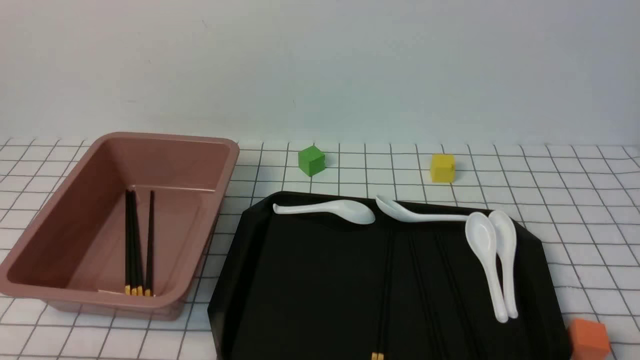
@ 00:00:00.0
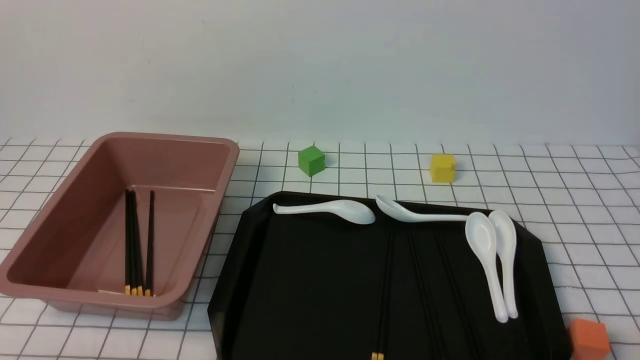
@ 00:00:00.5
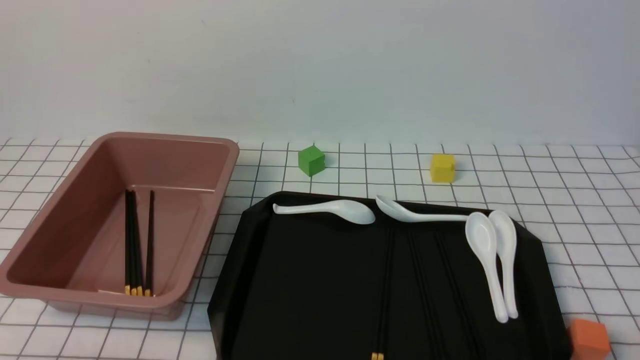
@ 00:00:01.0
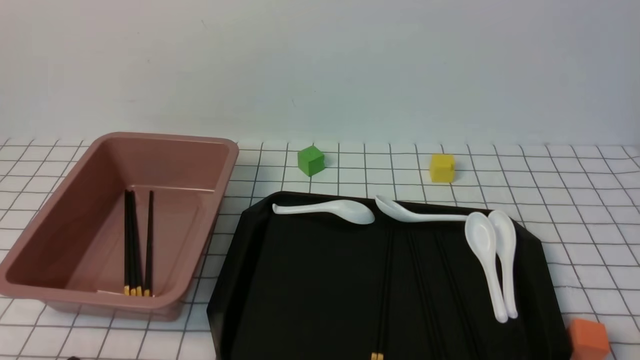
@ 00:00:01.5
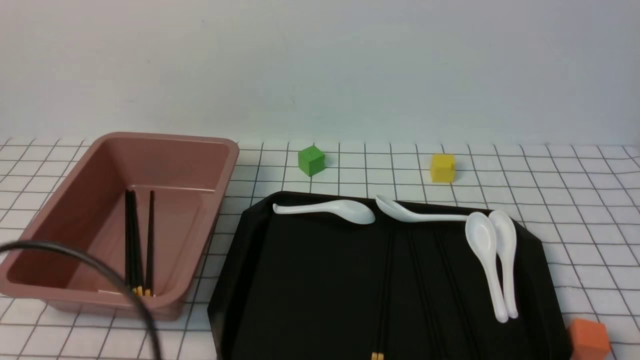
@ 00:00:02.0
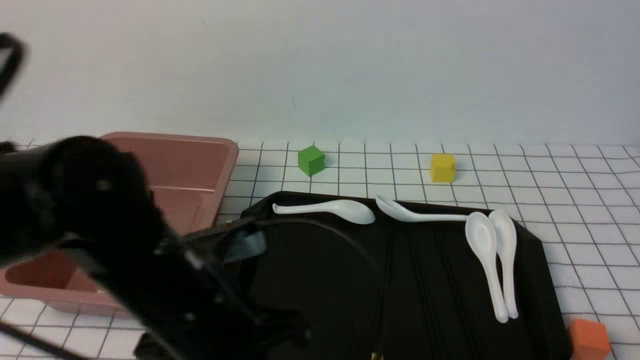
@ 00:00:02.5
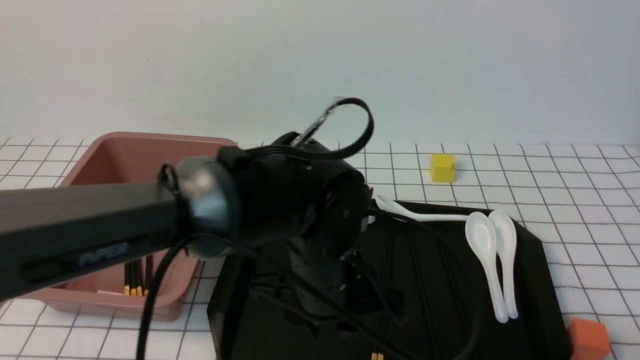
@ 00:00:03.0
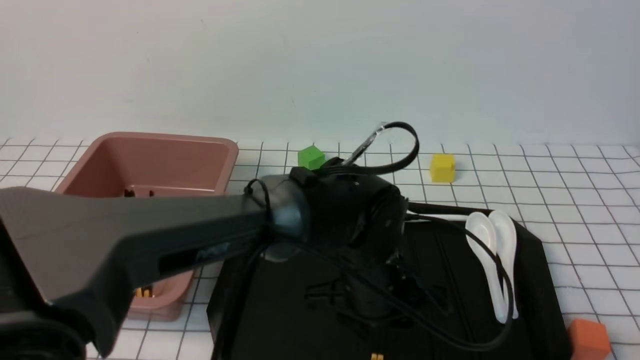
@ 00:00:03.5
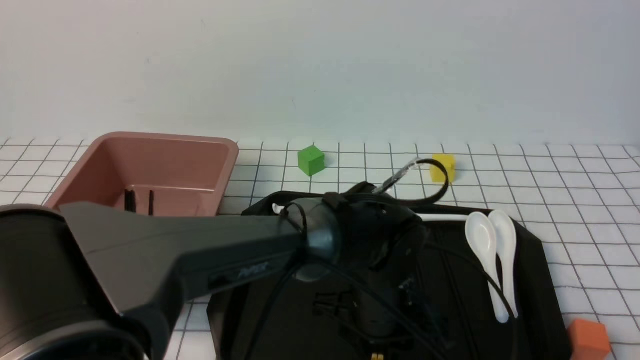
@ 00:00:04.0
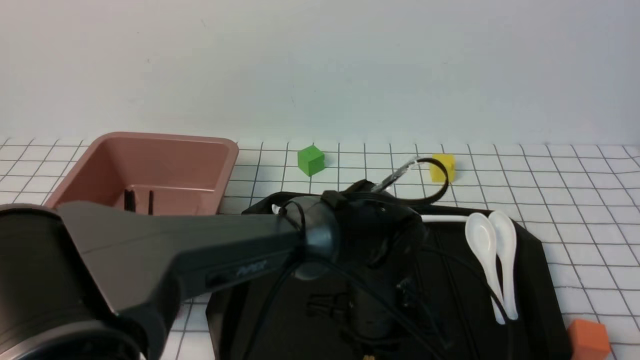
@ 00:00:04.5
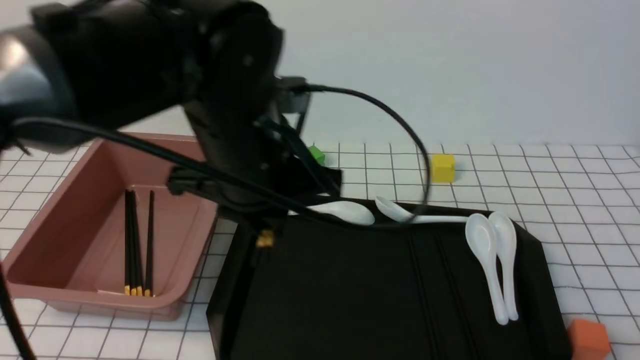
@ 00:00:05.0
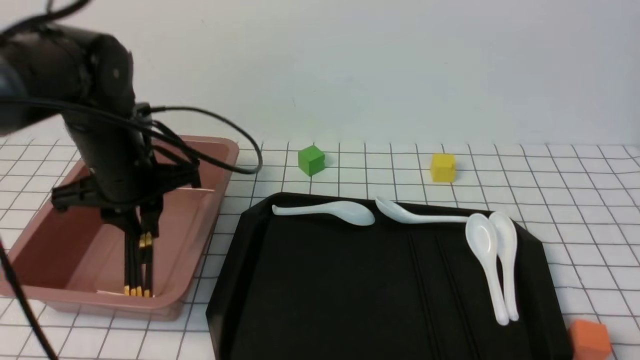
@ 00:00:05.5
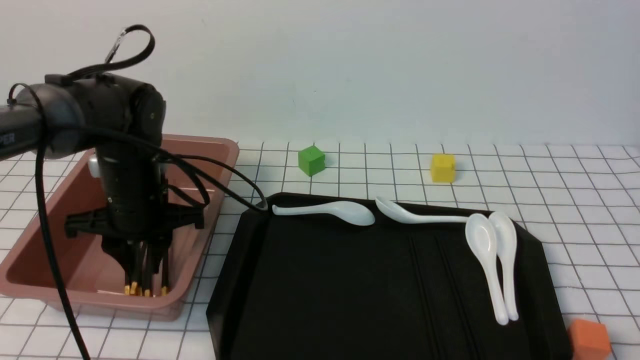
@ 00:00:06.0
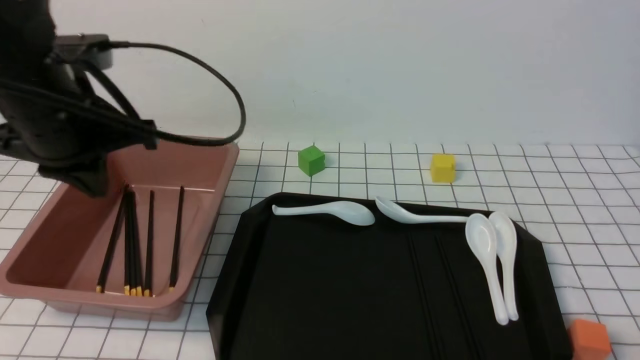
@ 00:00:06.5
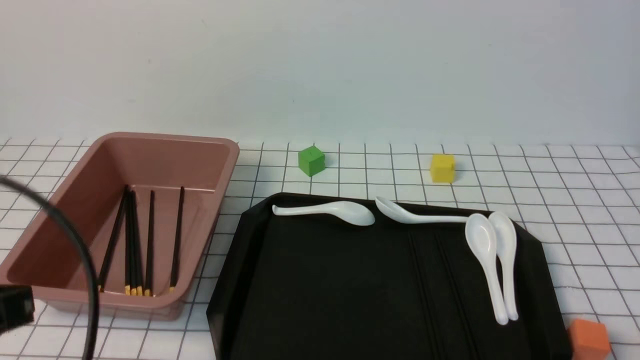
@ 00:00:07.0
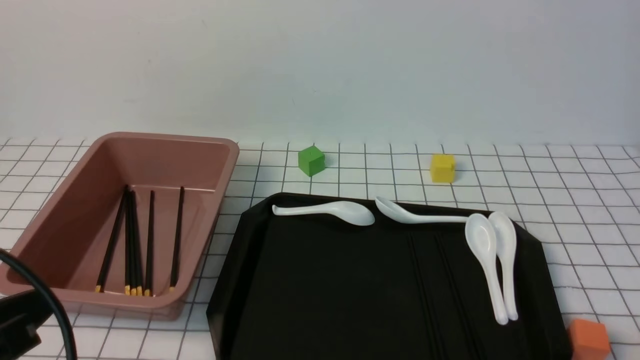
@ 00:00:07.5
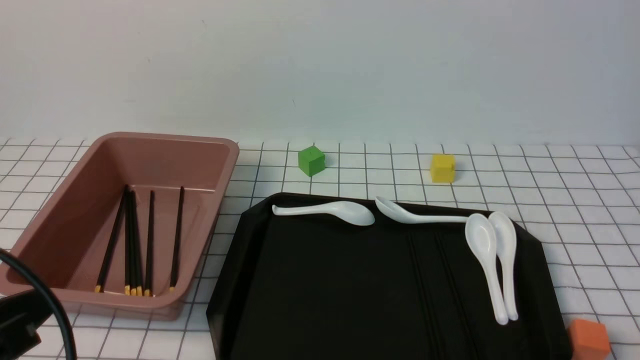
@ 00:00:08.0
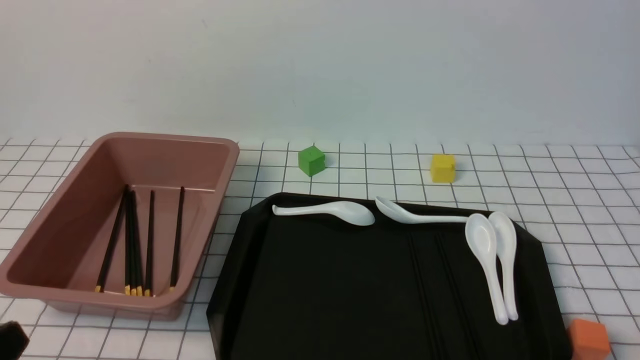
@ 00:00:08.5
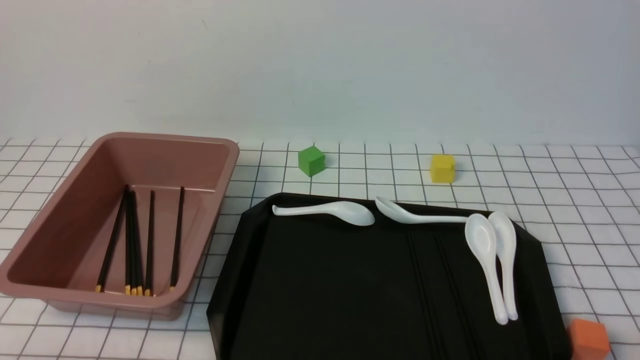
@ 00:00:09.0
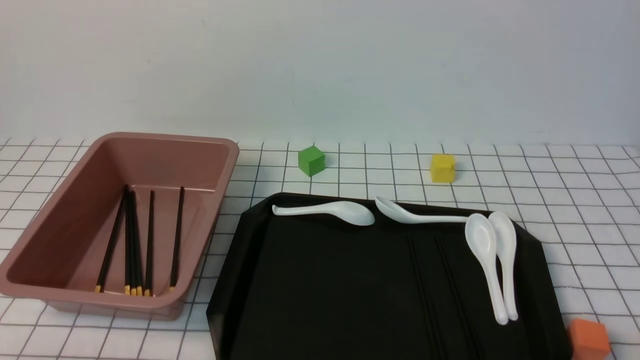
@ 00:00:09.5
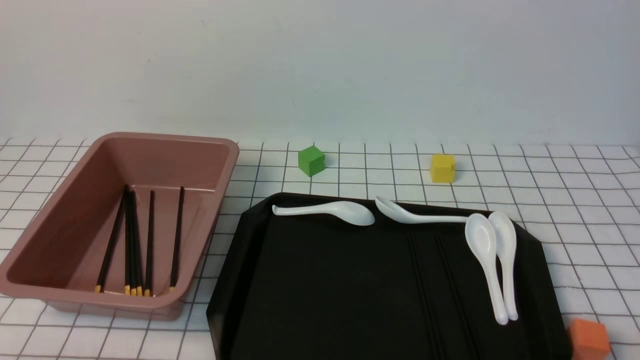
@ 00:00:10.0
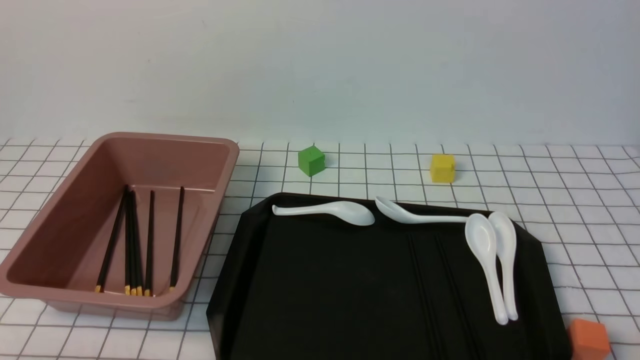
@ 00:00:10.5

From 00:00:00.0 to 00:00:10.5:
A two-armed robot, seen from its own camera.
Step, from 00:00:00.0 to 00:00:04.5: use the left arm to grab a pair of chopsticks.
Step, from 00:00:05.5 to 00:00:06.5: use the left arm to put the chopsticks into the lunch box.
From 00:00:00.0 to 00:00:02.0: The left gripper travels upward by about 15 cm.
From 00:00:02.0 to 00:00:04.0: The left gripper shifts some 35 cm to the right, forward and downward, and opens.
From 00:00:04.0 to 00:00:06.5: The left gripper travels to the left and upward by approximately 35 cm, and closes its fingers.
From 00:00:06.5 to 00:00:08.5: The left gripper shifts approximately 25 cm backward and downward.
